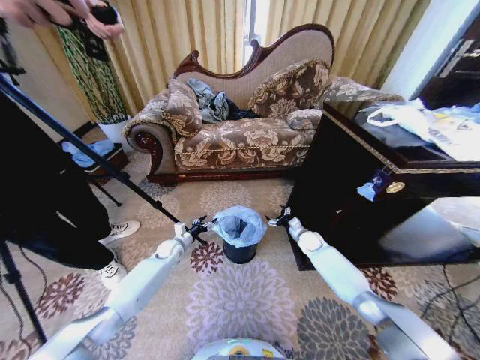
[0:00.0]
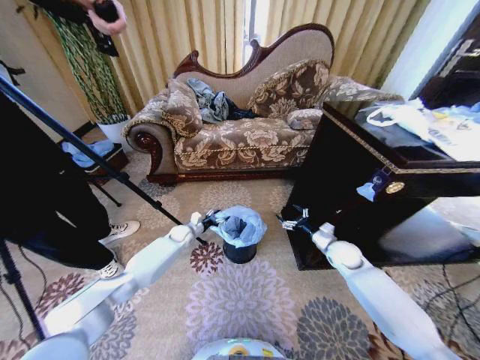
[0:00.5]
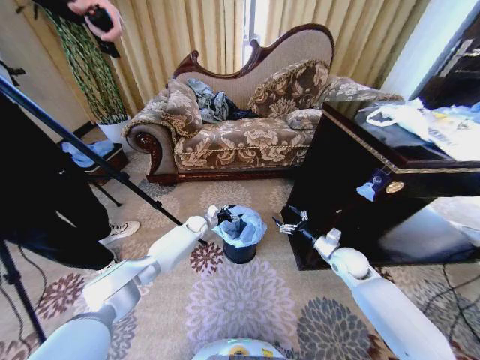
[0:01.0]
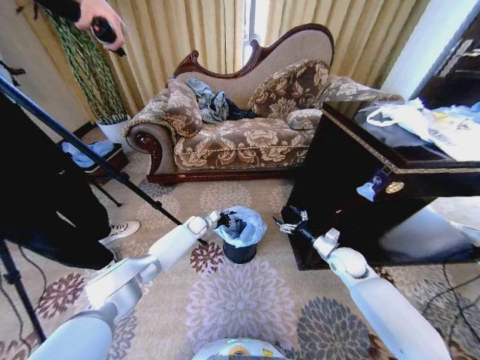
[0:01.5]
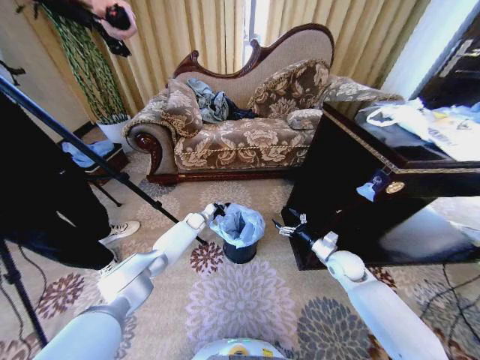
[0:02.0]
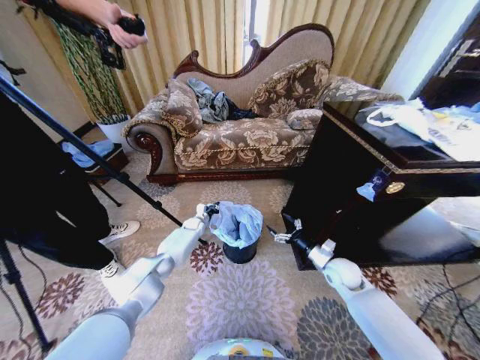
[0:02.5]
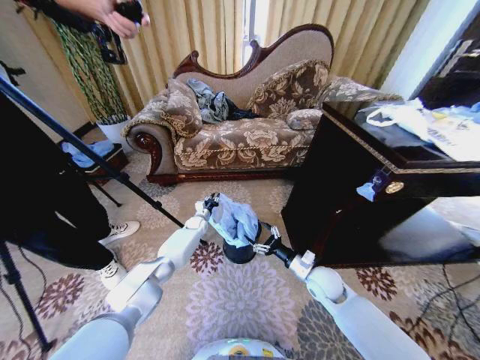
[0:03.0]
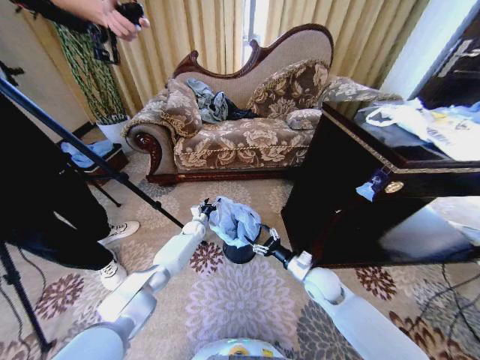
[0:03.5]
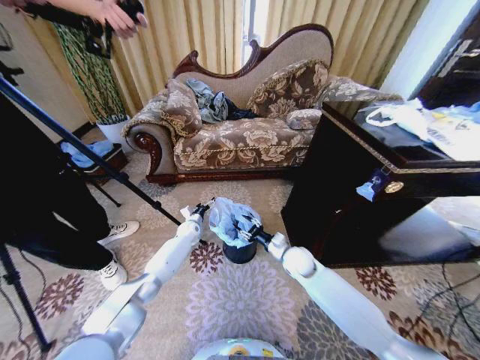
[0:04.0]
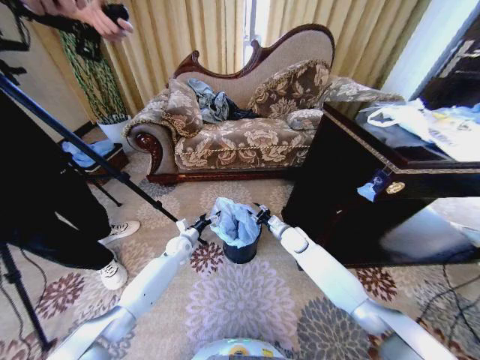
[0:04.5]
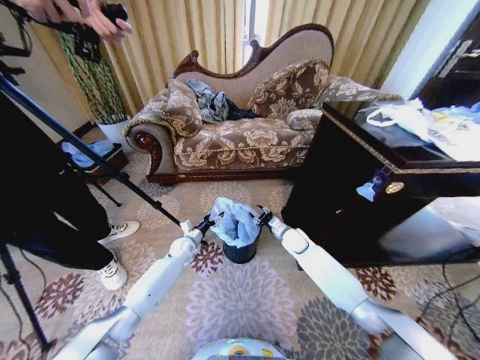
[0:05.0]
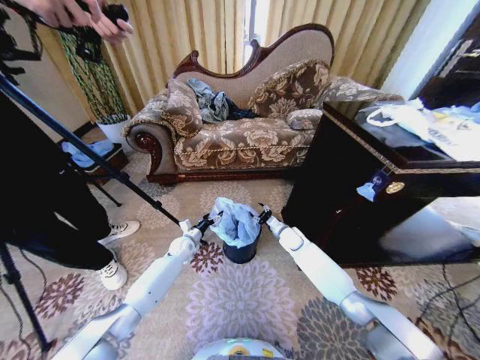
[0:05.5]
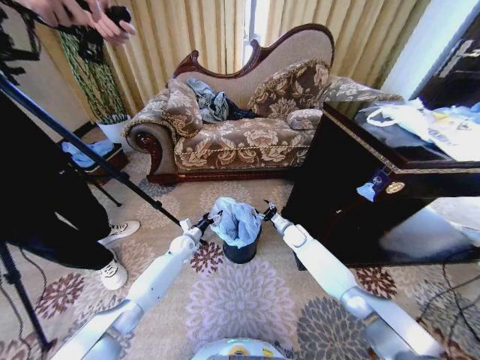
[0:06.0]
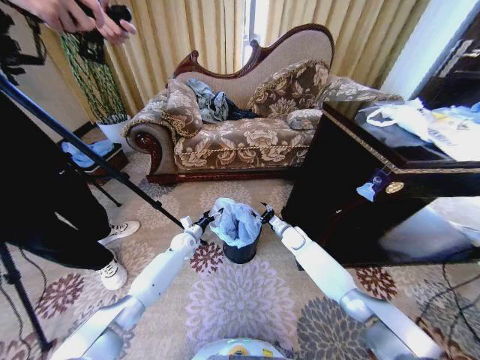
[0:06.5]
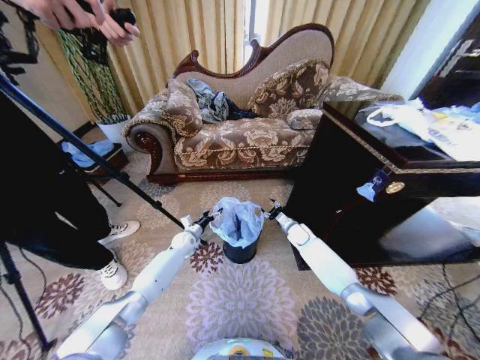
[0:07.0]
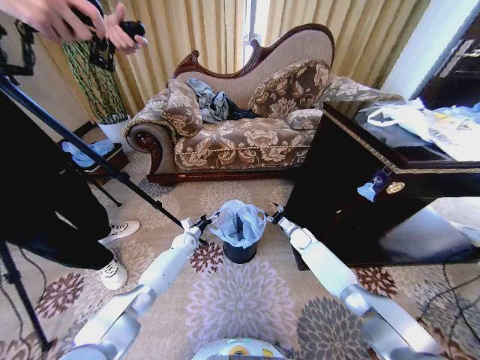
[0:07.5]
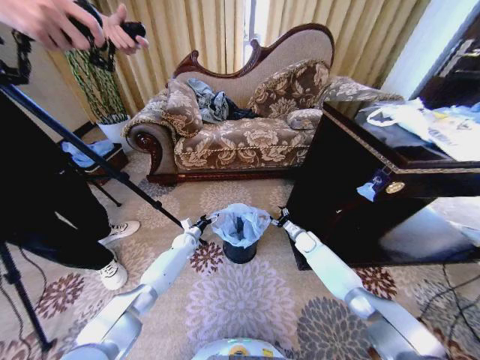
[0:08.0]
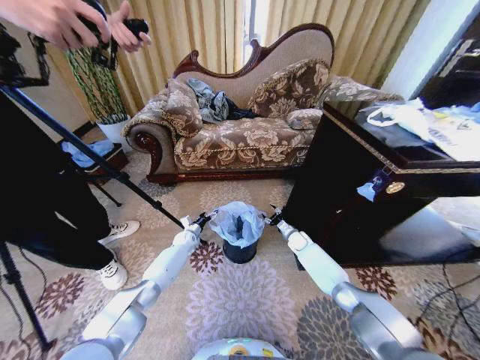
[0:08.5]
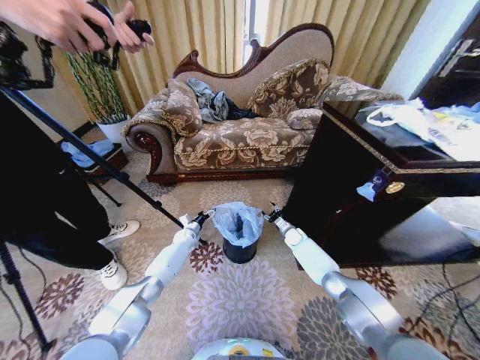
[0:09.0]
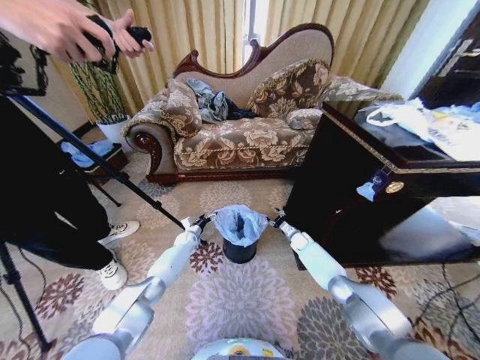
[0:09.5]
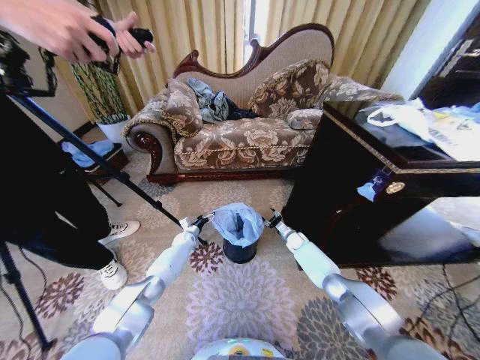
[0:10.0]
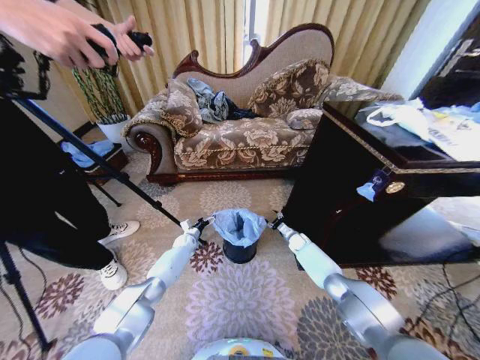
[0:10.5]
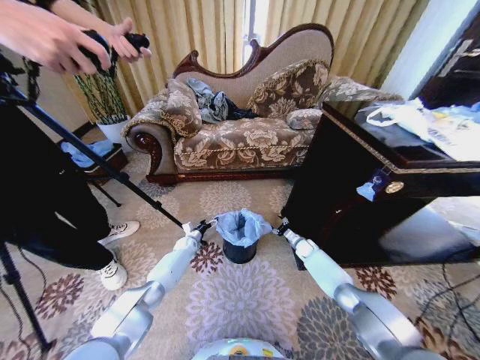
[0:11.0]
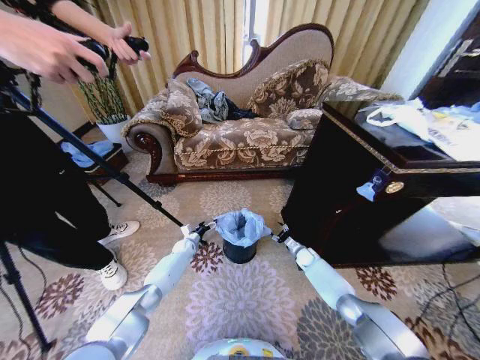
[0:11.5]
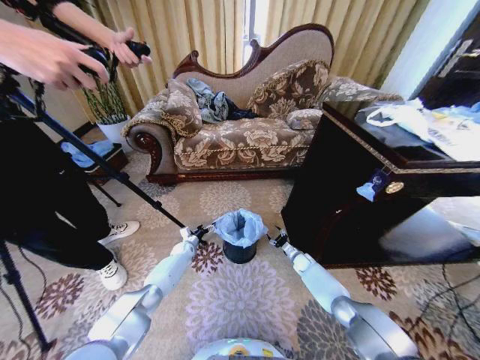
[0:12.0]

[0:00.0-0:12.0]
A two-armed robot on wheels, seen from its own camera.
Task of the whole recording: Place a garbage bag over the trash bin.
0:00.0 to 0:02.0: The right gripper moves backward and upward, roughly 15 cm. The left gripper moves forward and to the right, approximately 15 cm, and closes its fingers.
0:02.0 to 0:04.0: The right gripper travels to the left by roughly 15 cm, and closes up. Meanwhile the left gripper opens.
0:04.0 to 0:06.0: The left gripper travels backward by about 5 cm; the right gripper travels forward by some 15 cm.
0:06.0 to 0:08.0: The left gripper moves approximately 5 cm; the right gripper moves to the right and downward, some 10 cm.
0:08.0 to 0:10.0: The right gripper changes place by some 5 cm.
0:10.0 to 0:12.0: The right gripper moves backward and downward, some 10 cm.

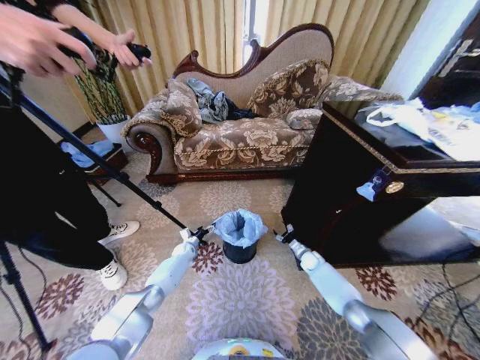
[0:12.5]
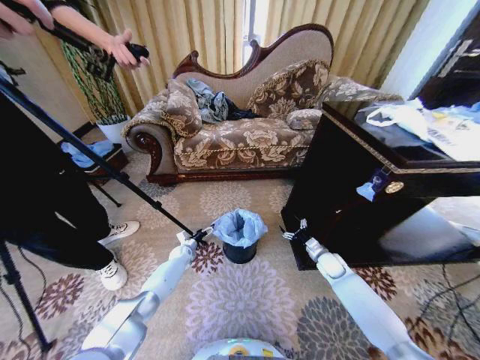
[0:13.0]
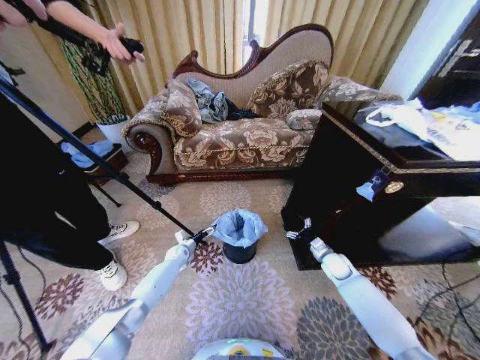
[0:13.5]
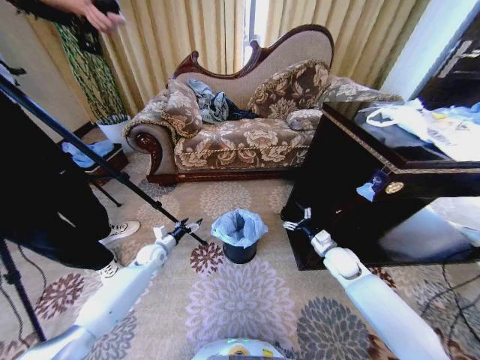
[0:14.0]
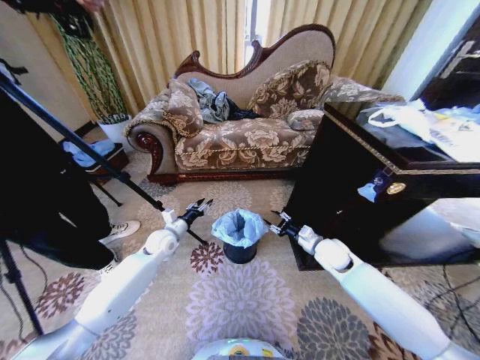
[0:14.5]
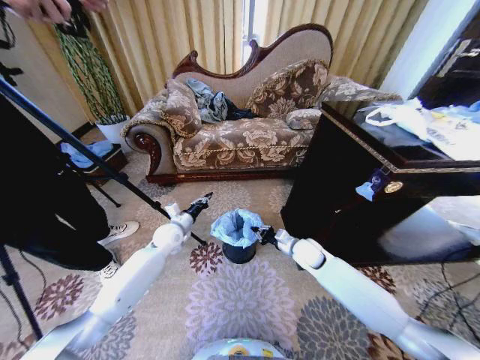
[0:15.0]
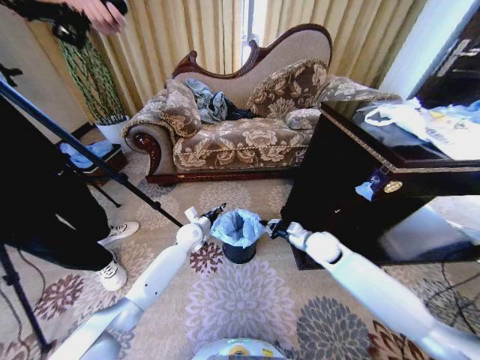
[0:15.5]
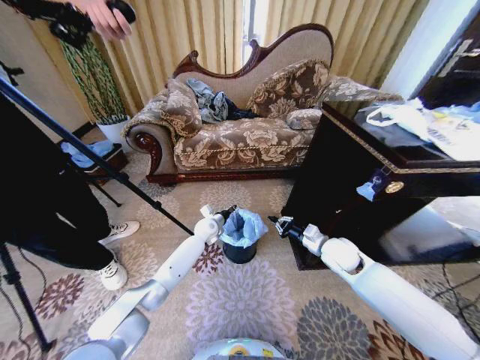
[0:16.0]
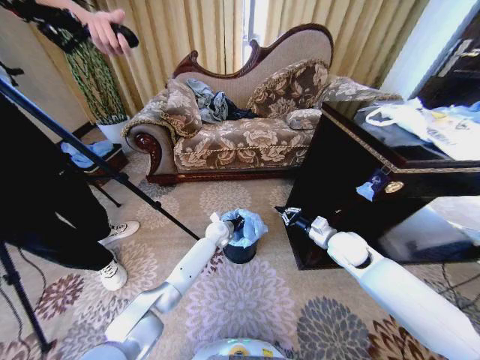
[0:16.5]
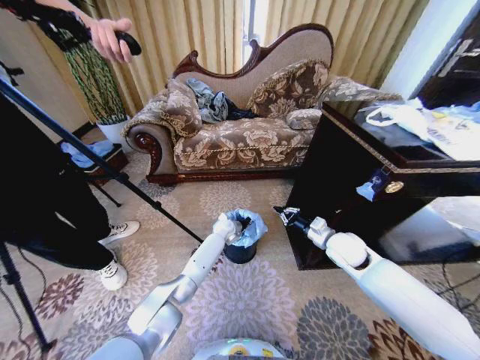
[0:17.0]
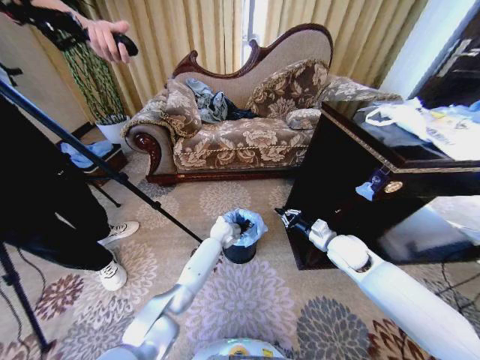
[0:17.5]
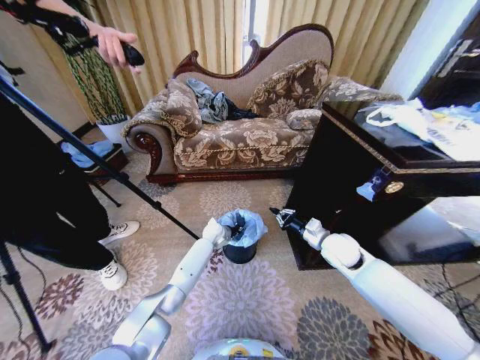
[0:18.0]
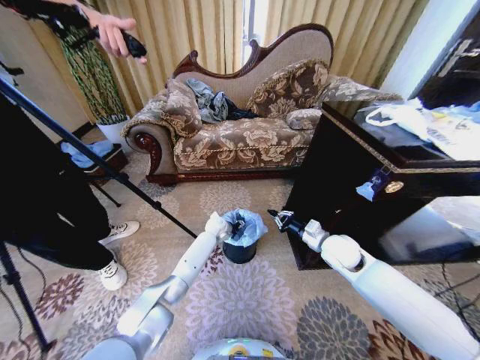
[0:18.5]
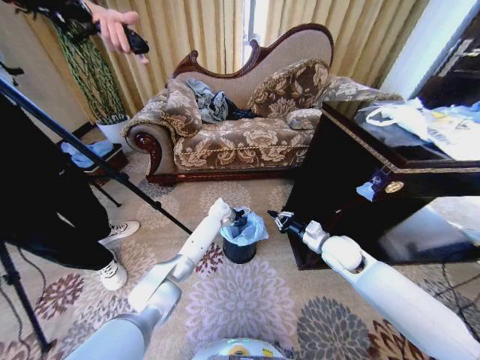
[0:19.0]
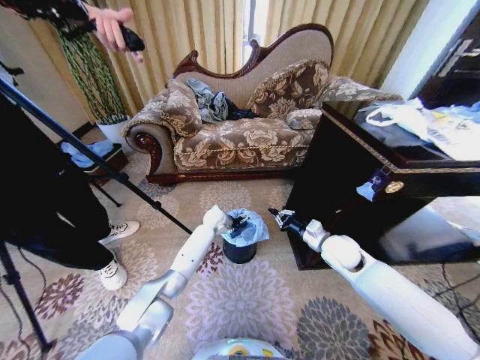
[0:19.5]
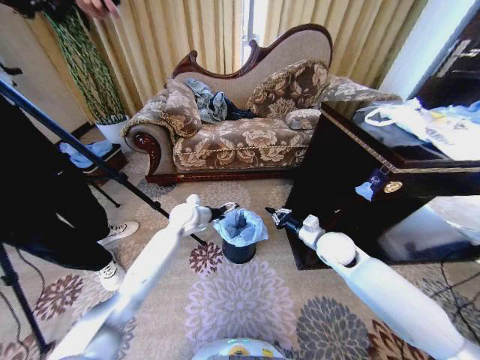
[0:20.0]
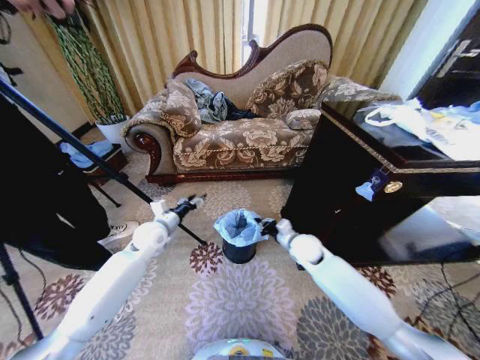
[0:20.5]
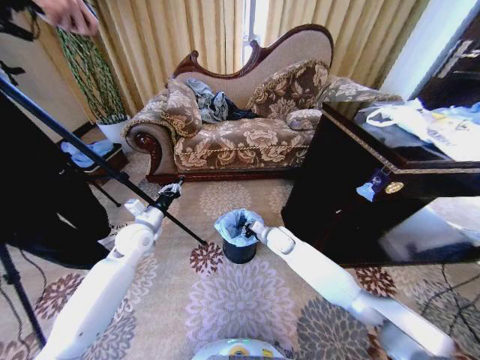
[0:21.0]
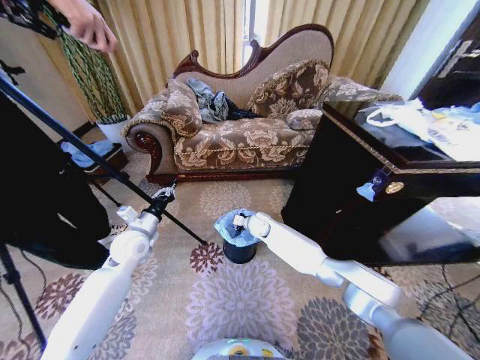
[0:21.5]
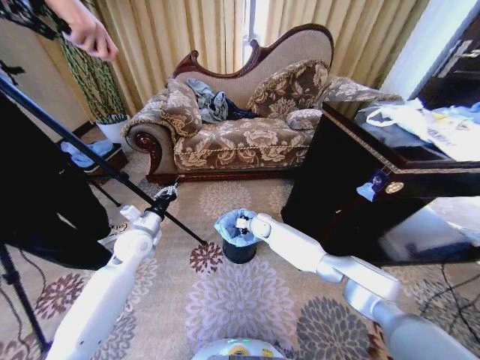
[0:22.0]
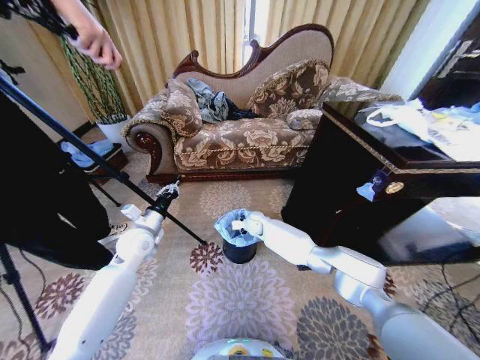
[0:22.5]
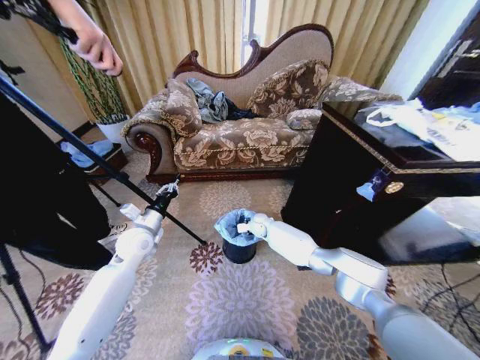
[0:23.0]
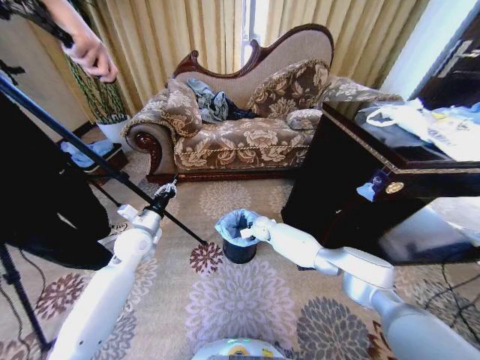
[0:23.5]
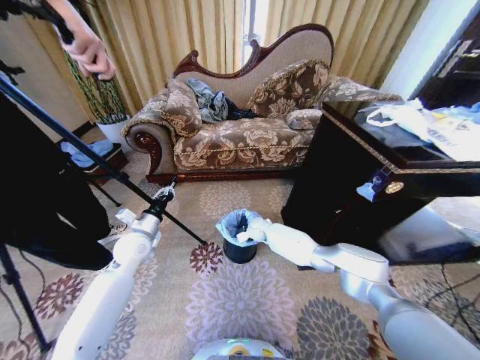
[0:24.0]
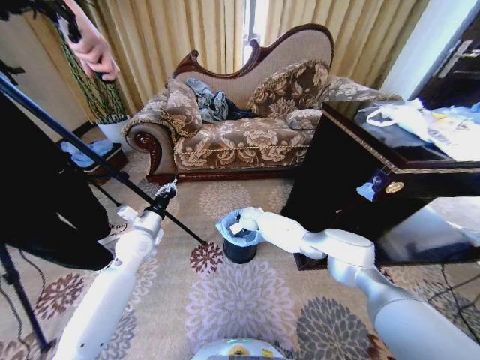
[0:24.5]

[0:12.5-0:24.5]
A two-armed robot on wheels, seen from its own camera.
Task of the whole recording: Place a garbage bag over the trash bin.
0:12.5 to 0:14.5: Both grippers move upward, about 20 cm. The left gripper closes up.
0:14.5 to 0:16.5: The right gripper moves upward, about 5 cm, and closes; the left gripper is displaced to the right and forward by approximately 20 cm, and closes.
0:16.5 to 0:18.5: The left gripper opens.
0:18.5 to 0:20.5: The right gripper shifts approximately 10 cm to the left and downward. Meanwhile the left gripper goes about 25 cm to the left, backward and upward.
0:20.5 to 0:22.5: The left gripper closes its fingers. Meanwhile the right gripper is displaced to the left and forward by about 20 cm.

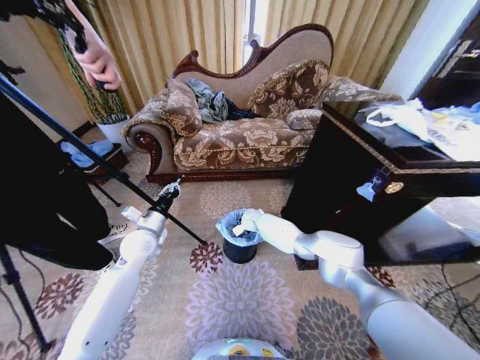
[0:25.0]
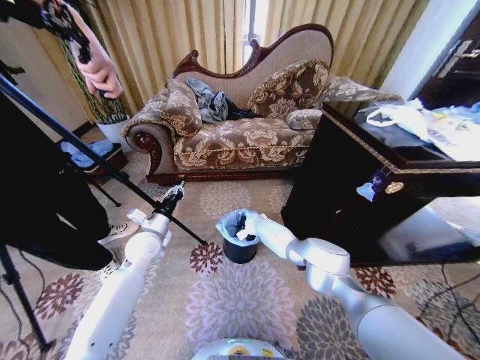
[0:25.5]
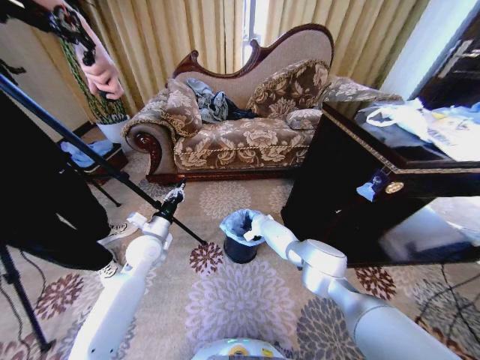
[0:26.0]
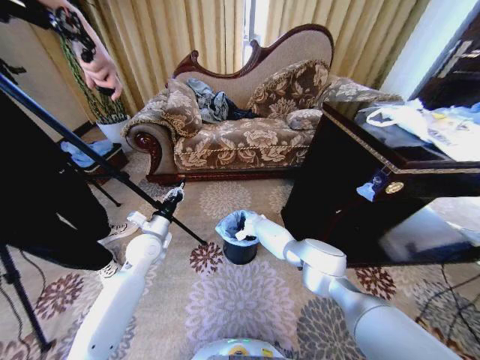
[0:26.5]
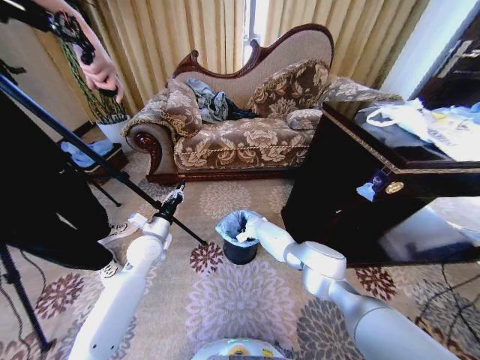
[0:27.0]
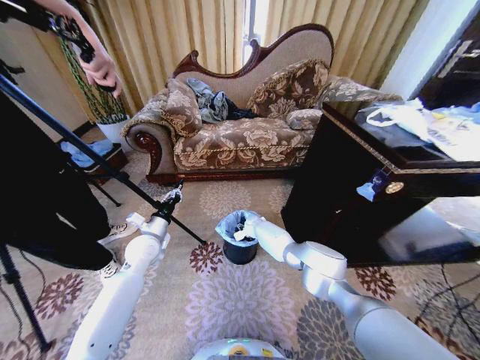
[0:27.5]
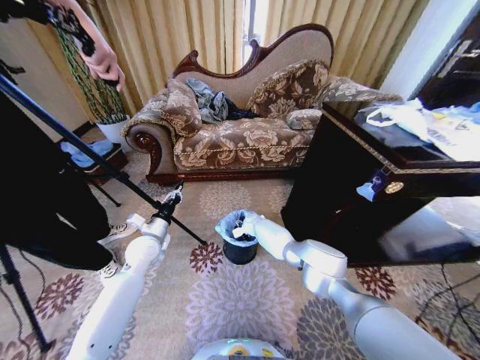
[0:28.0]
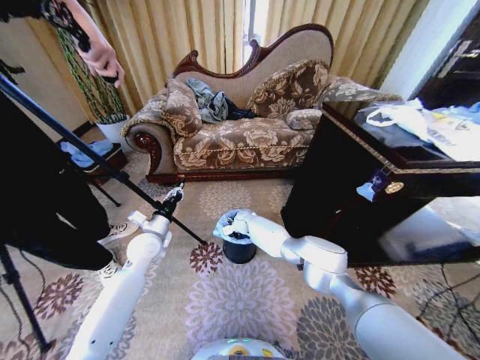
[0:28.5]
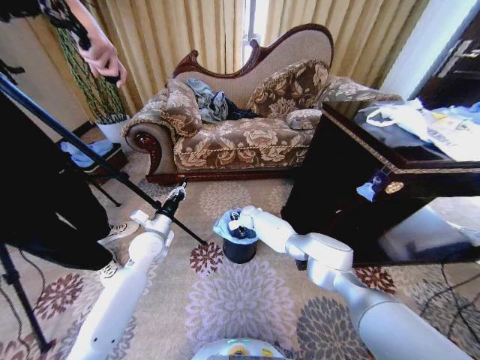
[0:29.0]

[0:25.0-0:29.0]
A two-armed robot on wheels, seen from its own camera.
Task of the whole recording: Place a garbage bag over the trash bin.
0:25.0 to 0:27.0: The right gripper is displaced downward by about 5 cm, and opens its fingers.
0:27.0 to 0:29.0: The right gripper travels upward by approximately 5 cm, and opens.
